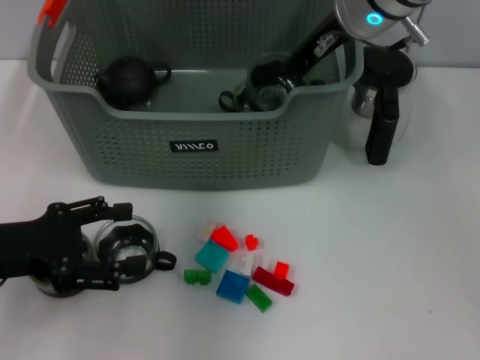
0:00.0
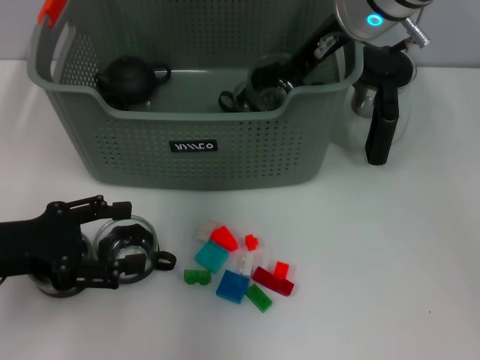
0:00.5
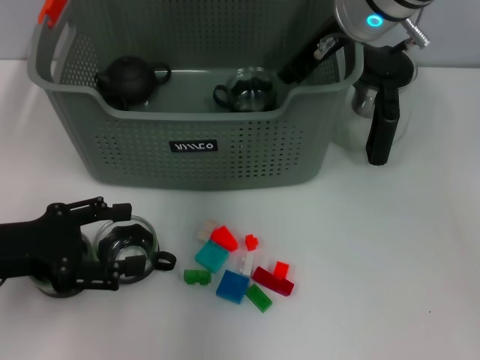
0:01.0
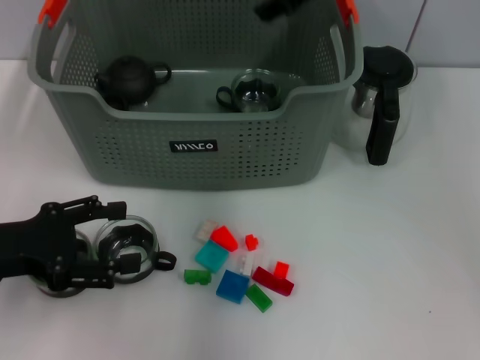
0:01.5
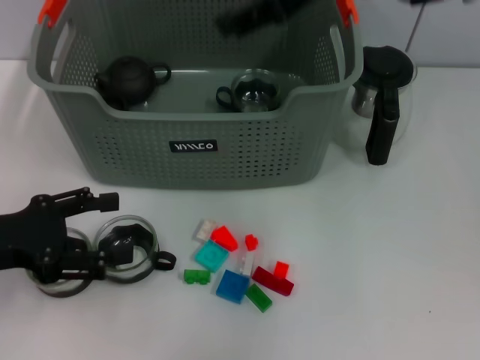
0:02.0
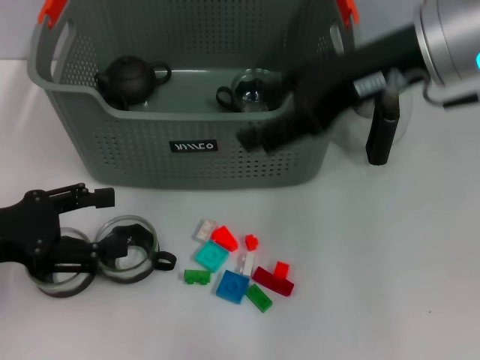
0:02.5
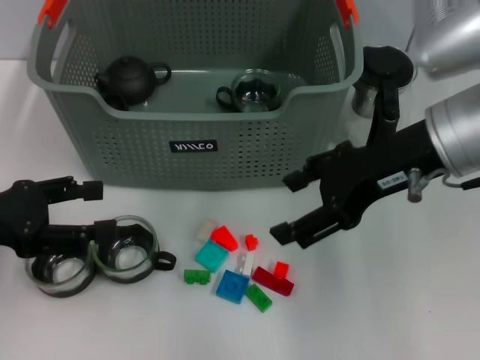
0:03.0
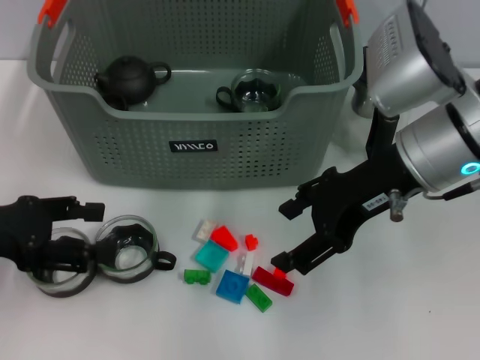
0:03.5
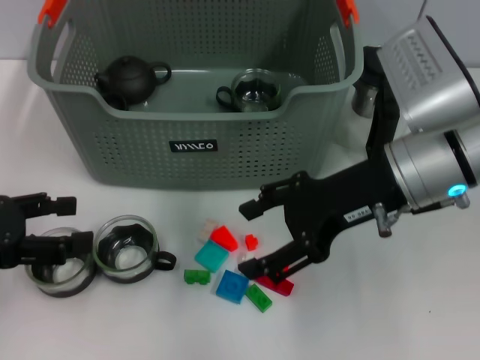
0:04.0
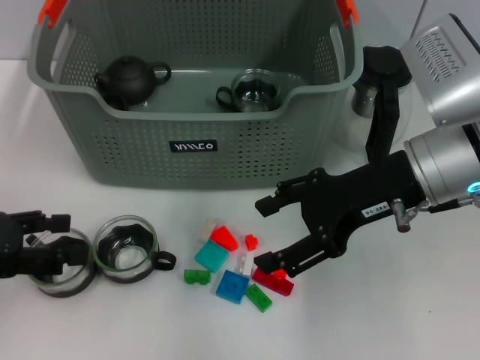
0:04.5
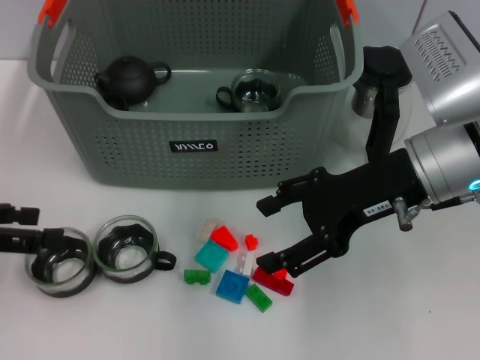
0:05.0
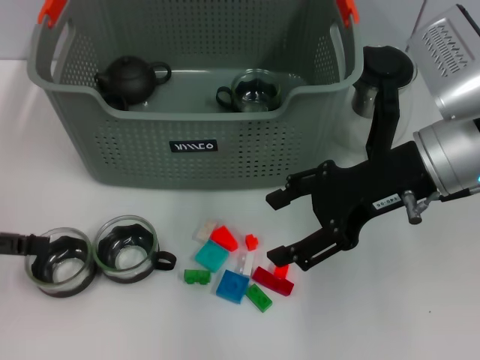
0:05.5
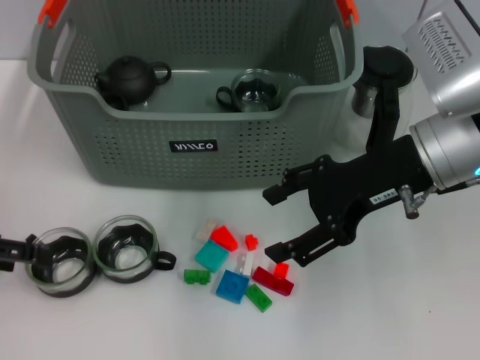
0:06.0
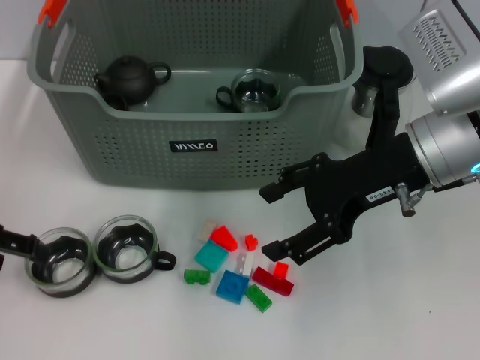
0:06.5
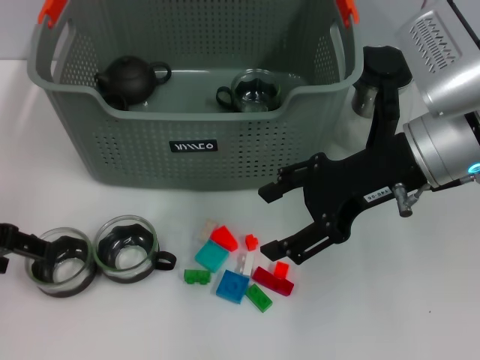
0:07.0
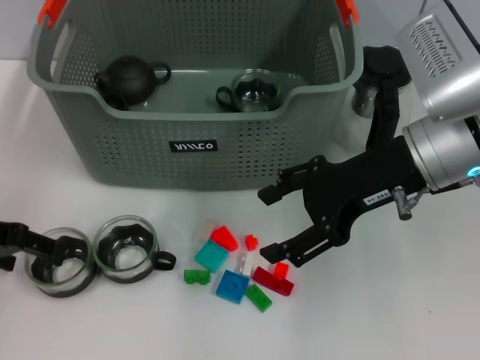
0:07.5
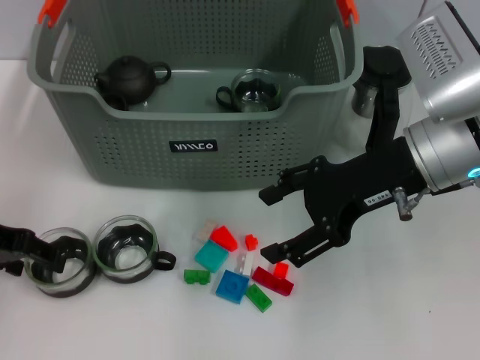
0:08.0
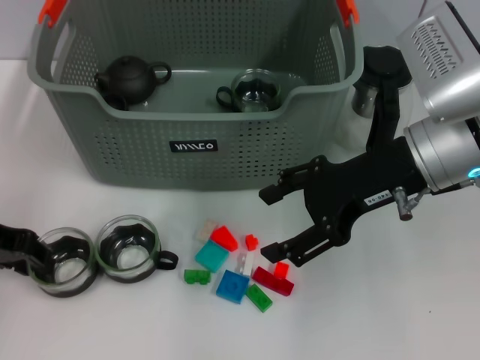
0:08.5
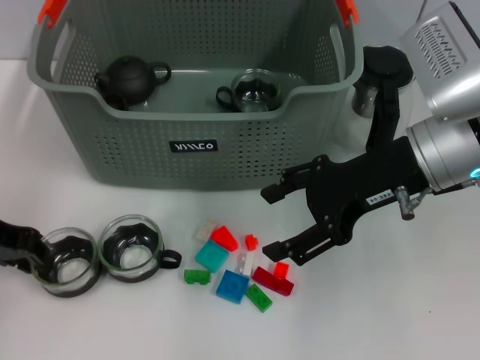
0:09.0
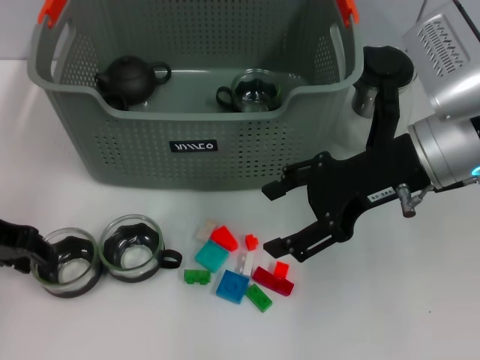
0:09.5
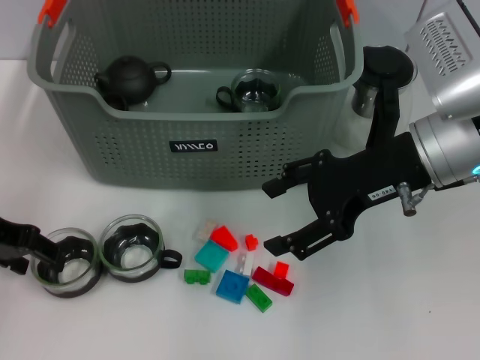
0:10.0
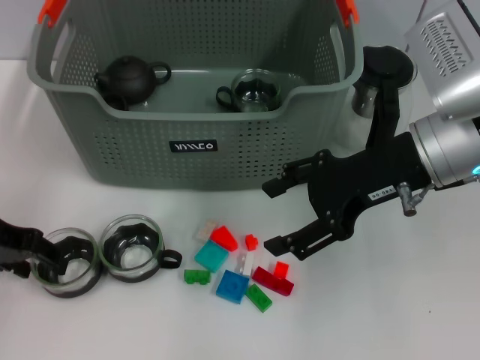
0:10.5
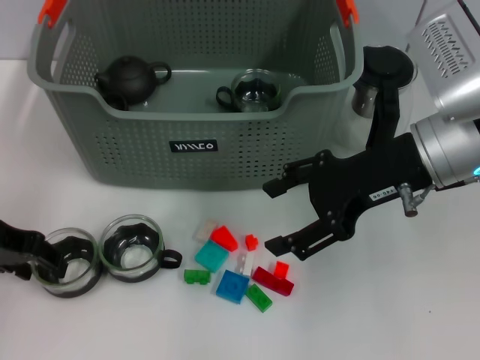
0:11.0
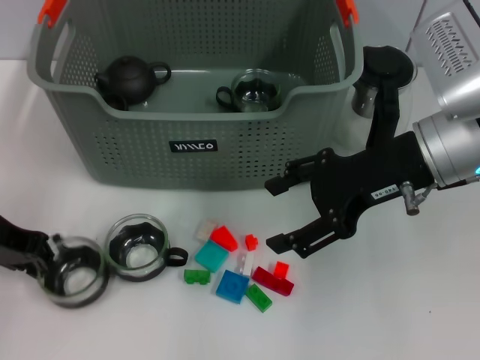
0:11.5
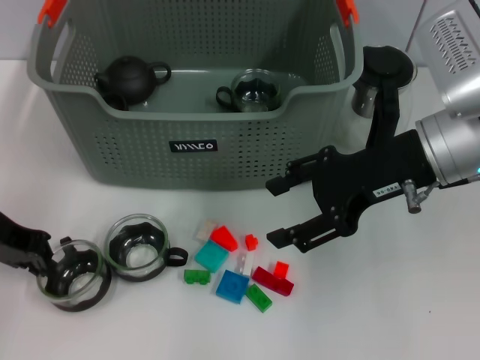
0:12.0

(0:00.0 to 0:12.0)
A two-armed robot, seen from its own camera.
Task of the whole recording: pick up the teacup on the table and place it into the storage bin, pick up the block on the table and place it into the storage bin.
Step, 0:02.0 - 0:11.5: Grasp the cup with left gripper.
0:00.0 - 0:02.0: The right gripper shifts roughly 10 cm upward and backward, and opens its fingers.
0:02.0 - 0:04.0: The right gripper goes roughly 15 cm downward and backward.
0:06.0 - 0:08.0: The left gripper changes place by approximately 5 cm.
0:08.0 - 0:10.0: The left gripper closes, then reopens.
0:10.0 - 0:12.0: The left gripper closes its fingers.

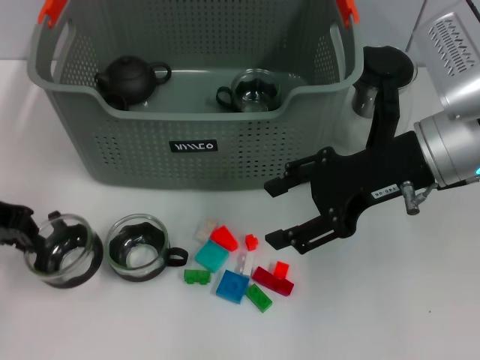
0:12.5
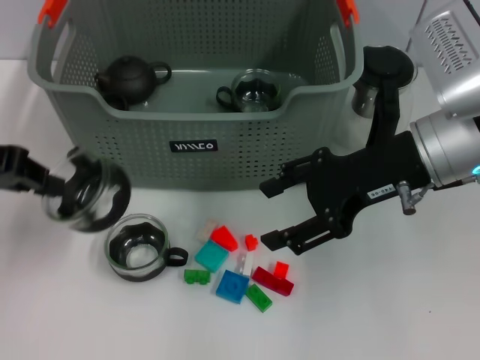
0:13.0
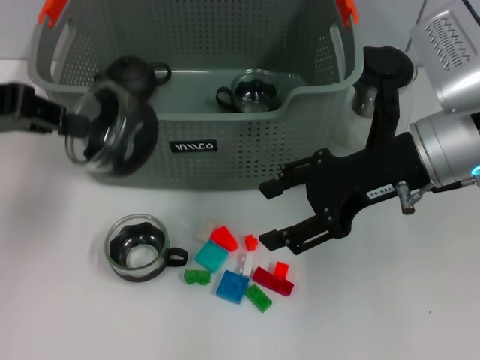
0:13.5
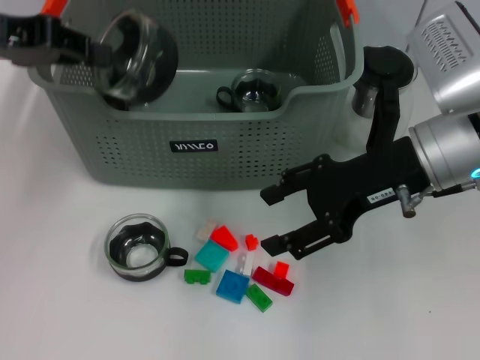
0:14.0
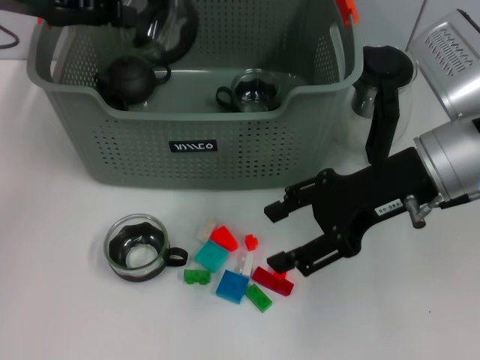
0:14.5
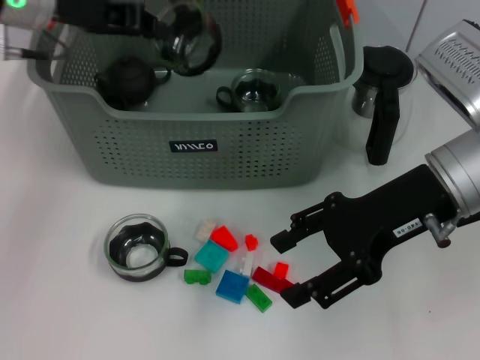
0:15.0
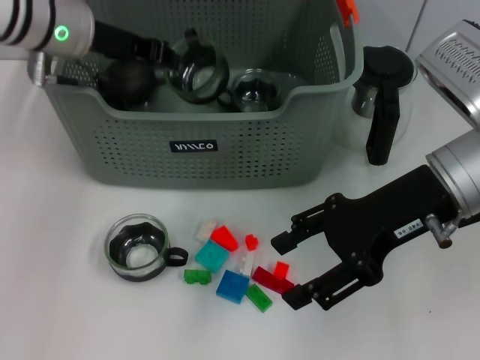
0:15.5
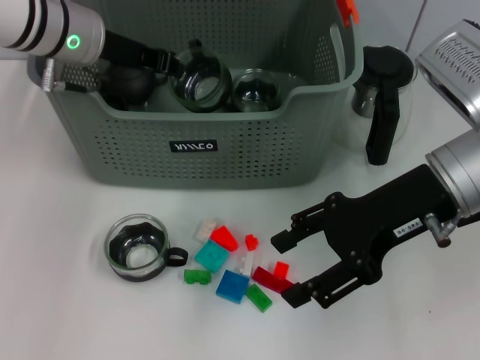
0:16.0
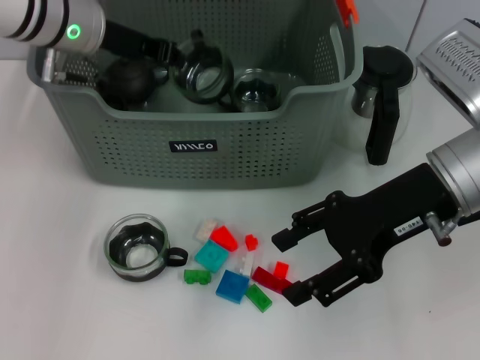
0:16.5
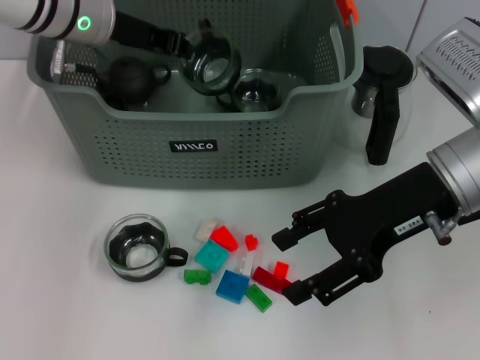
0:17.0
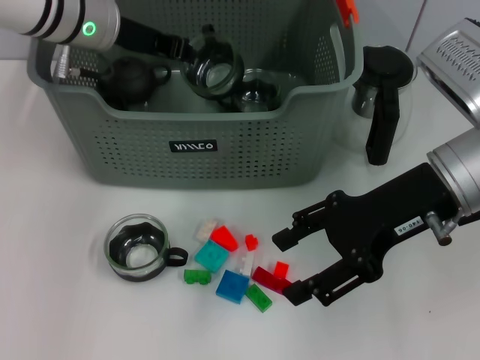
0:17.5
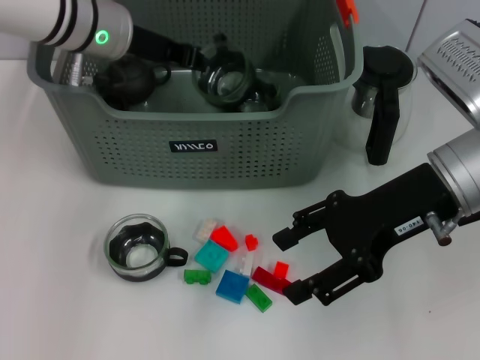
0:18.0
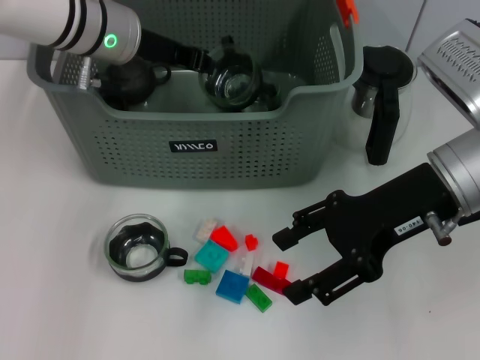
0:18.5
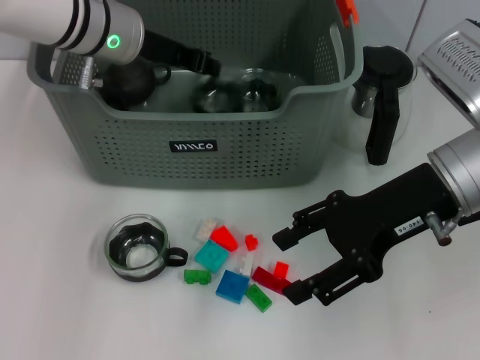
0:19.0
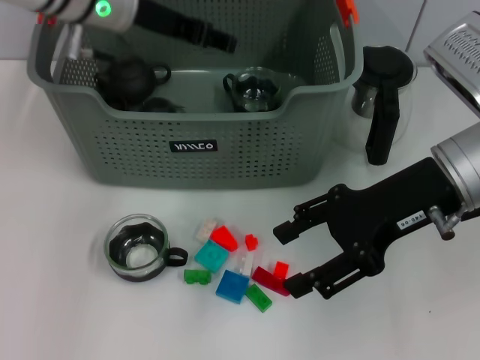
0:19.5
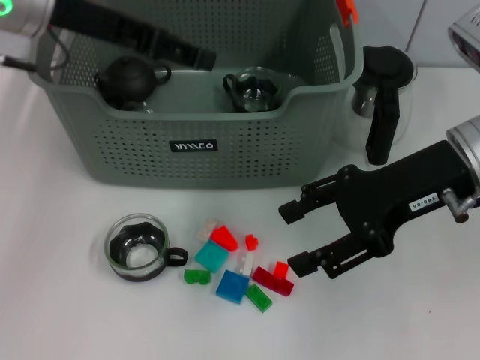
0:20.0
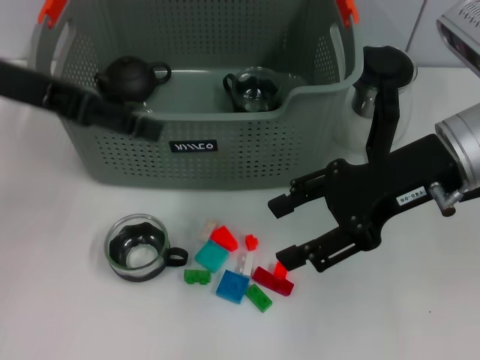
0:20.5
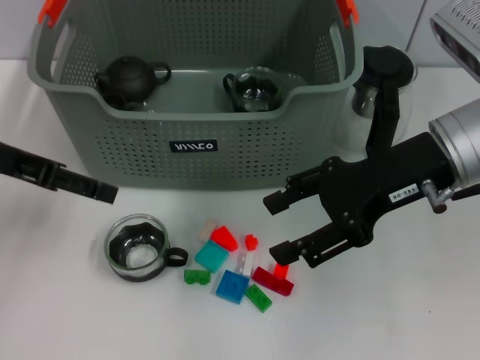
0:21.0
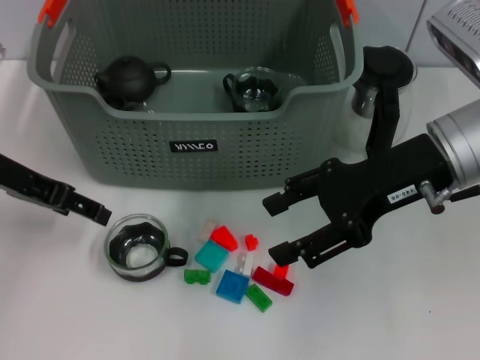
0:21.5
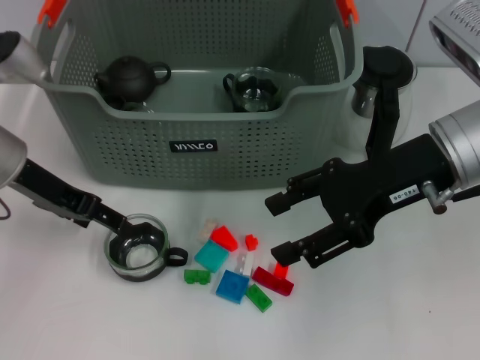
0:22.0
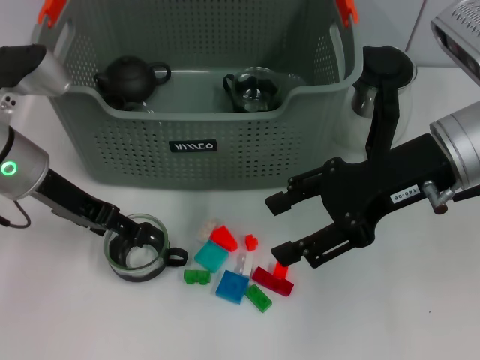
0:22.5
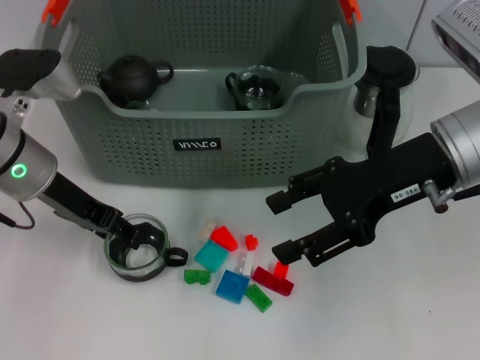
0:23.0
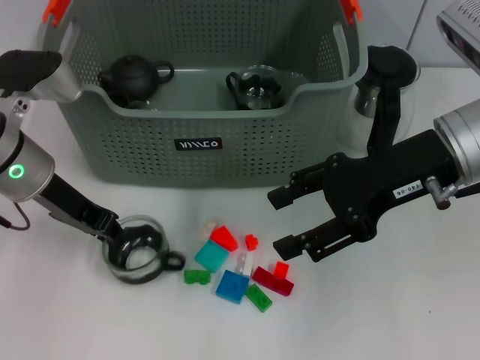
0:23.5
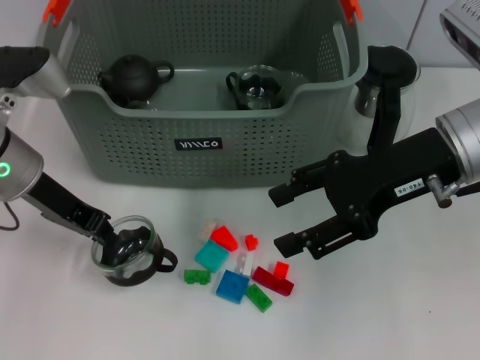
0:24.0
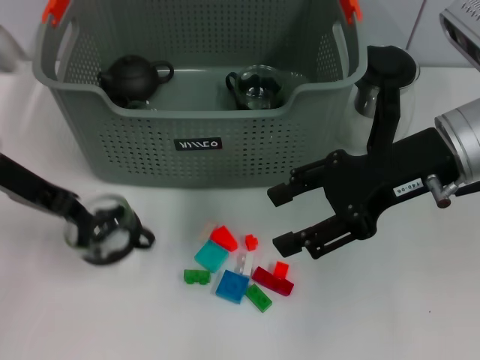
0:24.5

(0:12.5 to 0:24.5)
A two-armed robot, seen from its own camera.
Task of the whole recording: pick up the teacup on the table and place it into the storage bin, pick up the block on the table and place it into the storage bin.
Step, 0:12.5 - 0:20.0: Place the cup in the storage box with left gripper.
Step, 0:20.5 - 0:23.0: Grasp the cup with left gripper.
0:12.5 - 0:14.5: The left gripper heads forward and upward, covering roughly 10 cm.
0:14.5 - 0:16.5: The left gripper is displaced to the right and downward by some 10 cm.
0:16.5 - 0:18.5: There are only small adjustments of the grippers.
0:18.5 - 0:20.5: The left gripper shifts about 15 cm backward, to the left and upward, and opens up.
0:20.5 - 0:22.5: The left gripper moves downward, about 10 cm.
0:22.5 - 0:24.5: The left gripper ends up approximately 5 cm from where it was, and closes.

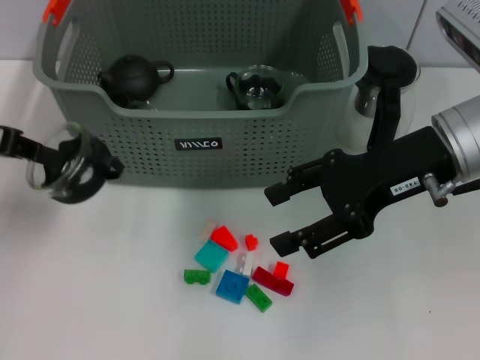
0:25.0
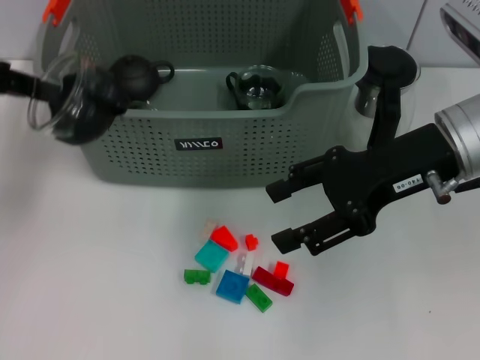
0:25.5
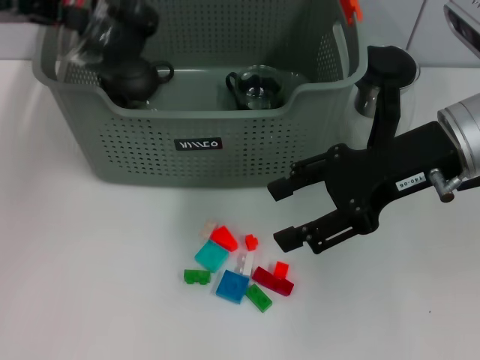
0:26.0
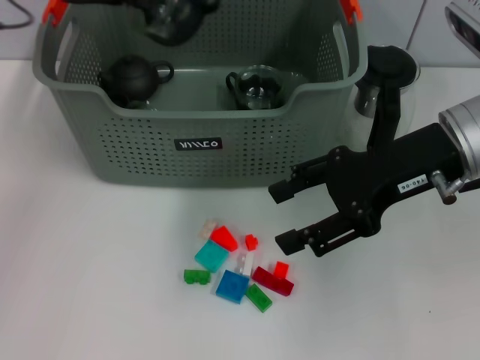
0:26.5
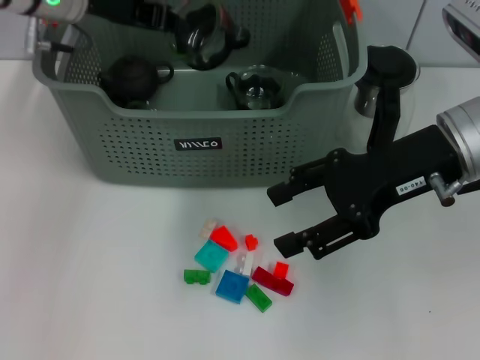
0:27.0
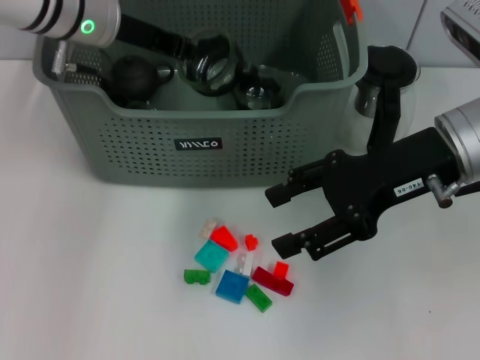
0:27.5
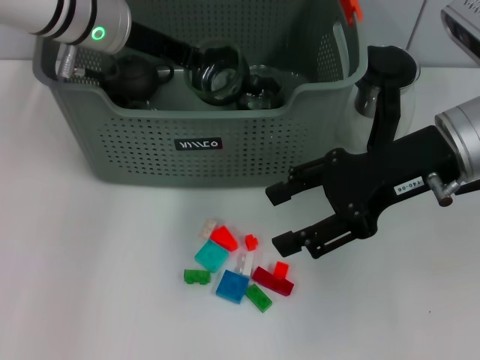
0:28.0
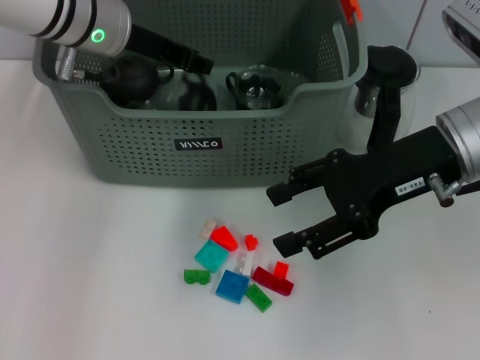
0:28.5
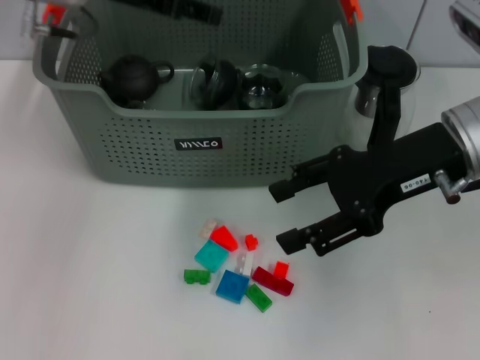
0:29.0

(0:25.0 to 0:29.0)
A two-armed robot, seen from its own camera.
Task of the whole recording: pick up the teacup on the table and place it into the storage bin, pick up the block on the table and place it into the storage bin.
0:25.0 - 0:27.0: The left gripper moves forward and to the right, about 15 cm.
0:27.0 - 0:29.0: The left gripper opens its fingers.
